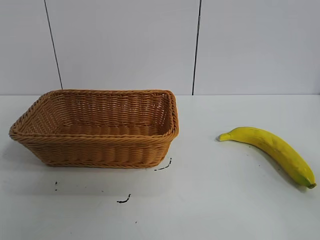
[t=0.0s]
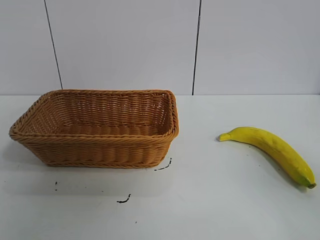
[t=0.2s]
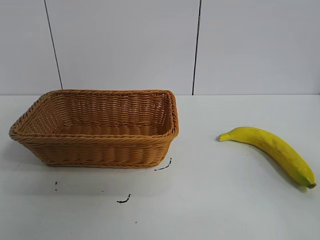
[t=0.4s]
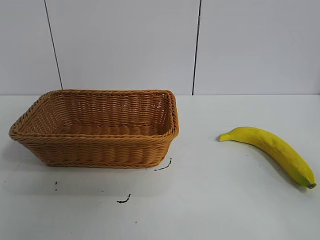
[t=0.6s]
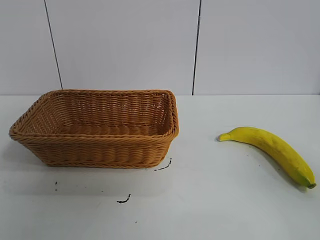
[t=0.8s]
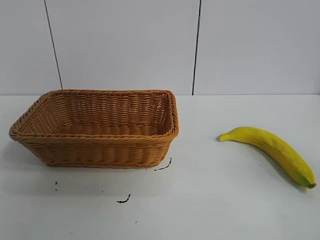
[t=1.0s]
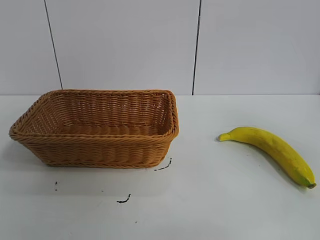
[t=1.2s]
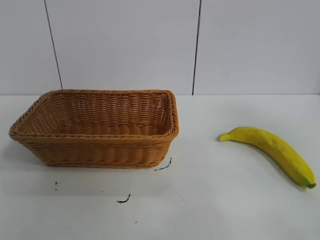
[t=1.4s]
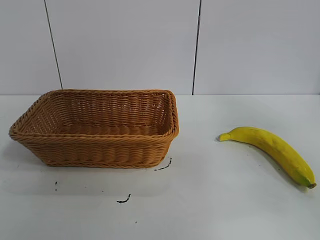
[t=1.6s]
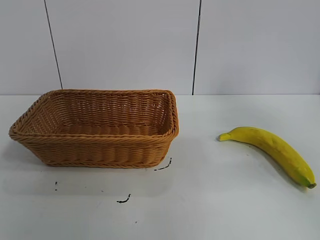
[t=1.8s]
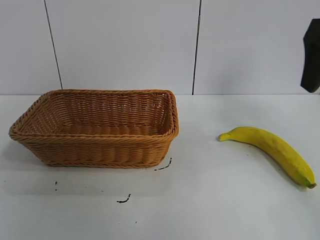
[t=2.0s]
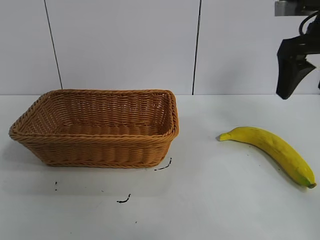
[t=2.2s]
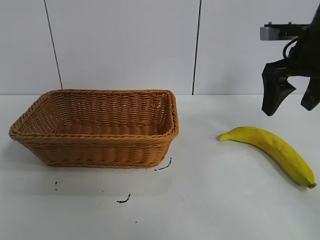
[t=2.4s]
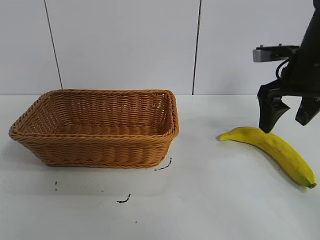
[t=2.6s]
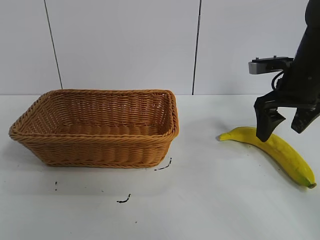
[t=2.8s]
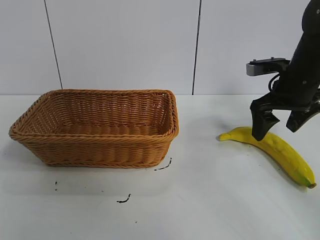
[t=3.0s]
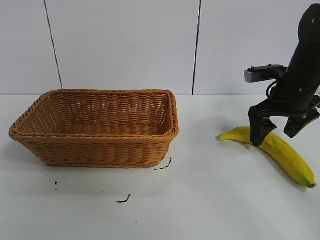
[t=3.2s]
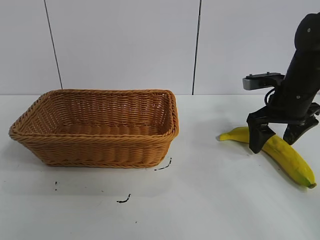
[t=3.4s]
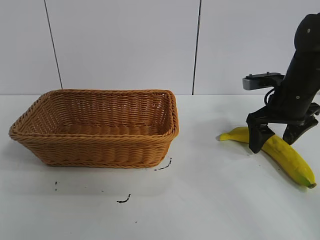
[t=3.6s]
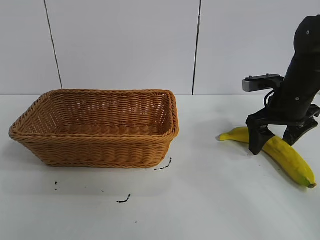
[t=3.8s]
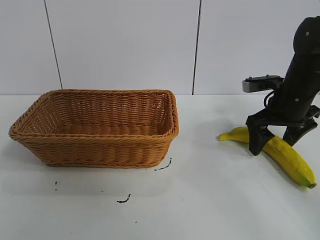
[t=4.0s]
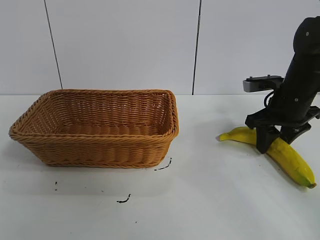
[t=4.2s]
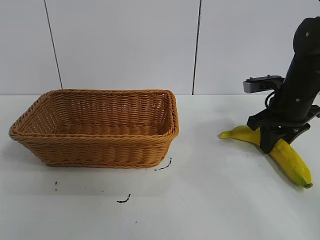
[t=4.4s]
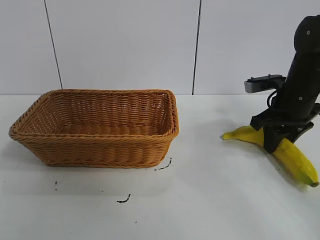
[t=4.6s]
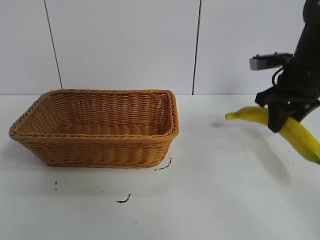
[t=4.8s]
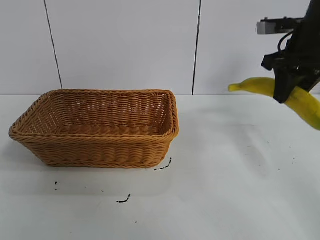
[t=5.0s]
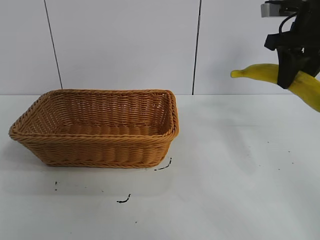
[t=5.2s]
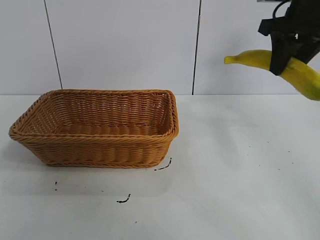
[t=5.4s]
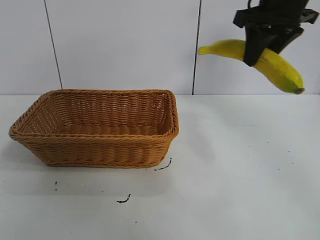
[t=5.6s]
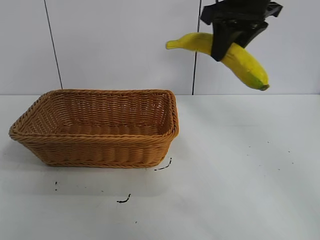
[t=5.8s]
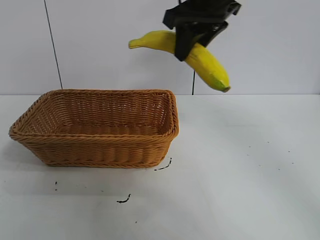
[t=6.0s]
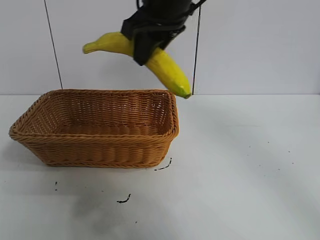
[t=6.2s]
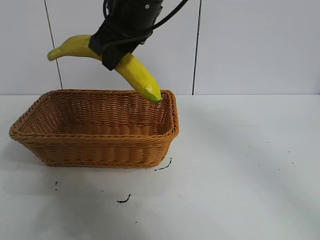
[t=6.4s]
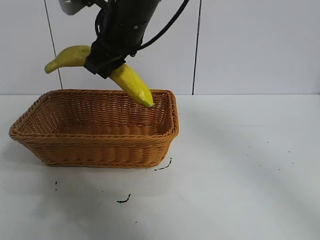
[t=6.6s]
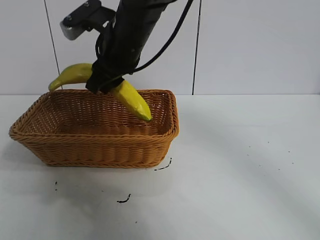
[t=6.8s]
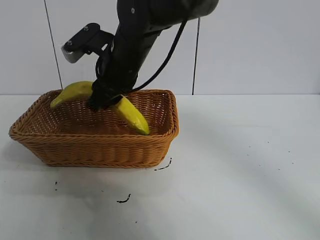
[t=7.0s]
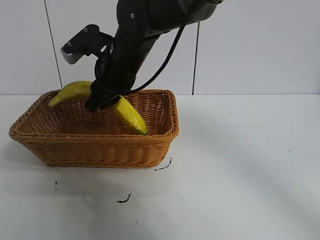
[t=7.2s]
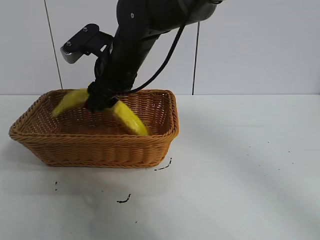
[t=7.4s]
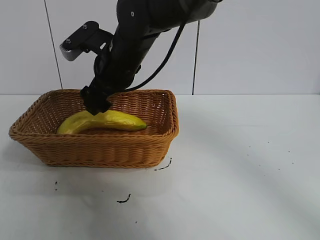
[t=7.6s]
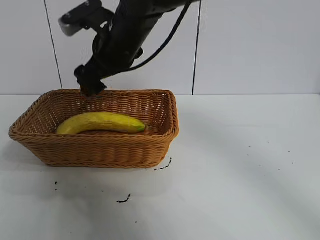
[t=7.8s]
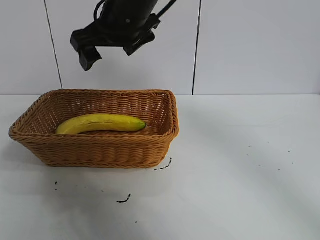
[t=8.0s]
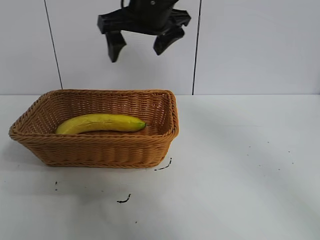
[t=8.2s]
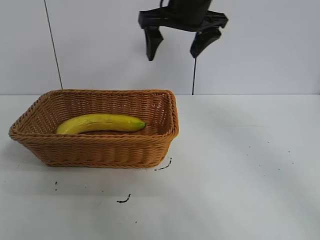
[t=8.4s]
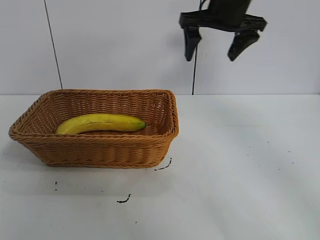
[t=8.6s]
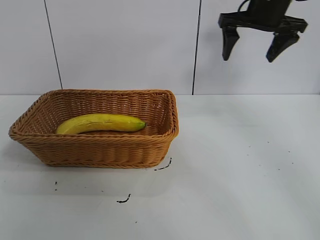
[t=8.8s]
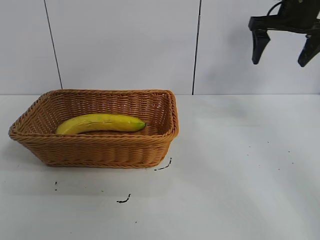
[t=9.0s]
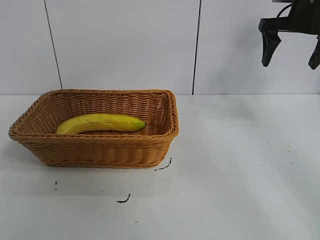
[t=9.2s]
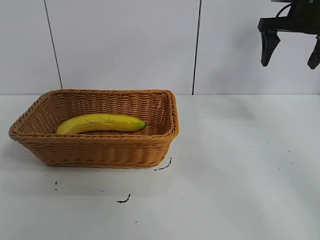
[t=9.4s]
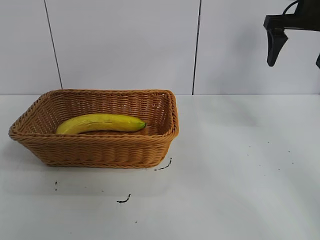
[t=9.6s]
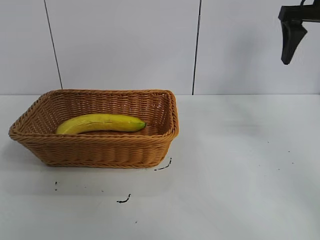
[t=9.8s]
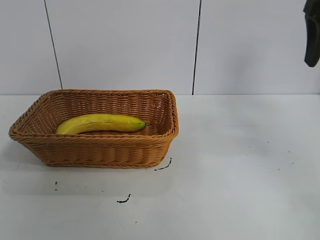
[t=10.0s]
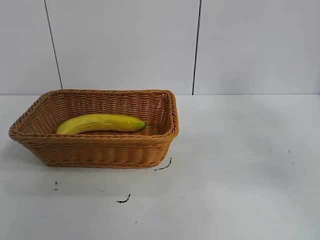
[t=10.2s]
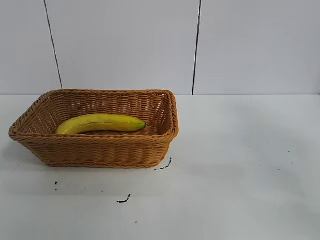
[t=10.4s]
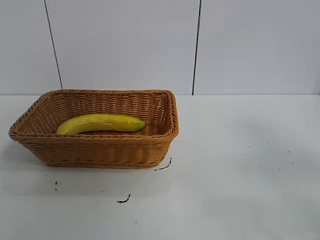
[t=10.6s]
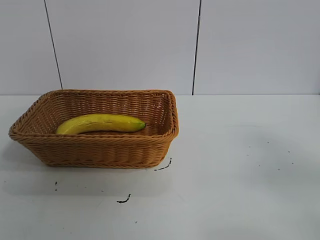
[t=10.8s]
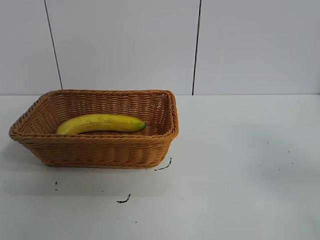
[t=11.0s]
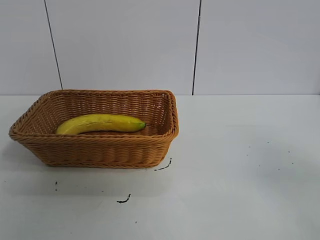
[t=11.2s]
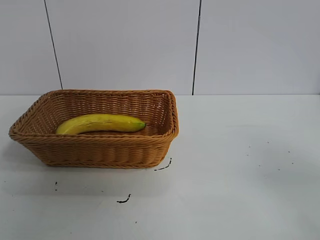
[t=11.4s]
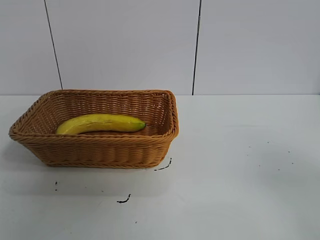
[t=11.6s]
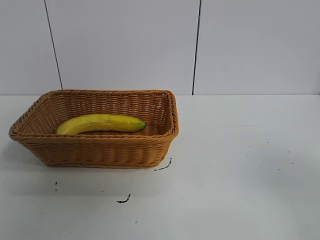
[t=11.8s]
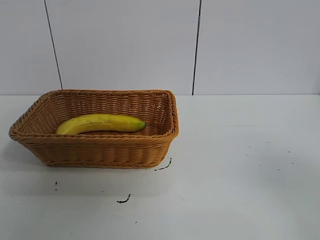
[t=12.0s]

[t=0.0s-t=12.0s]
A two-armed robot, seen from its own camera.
Task of the whole recording: pick up the banana and put it into the basket.
Step, t=0.8s to t=4.2s: Grasp the banana with right gripper.
Step, t=4.4s to t=7.6s: Place the banana in the basket with right gripper.
